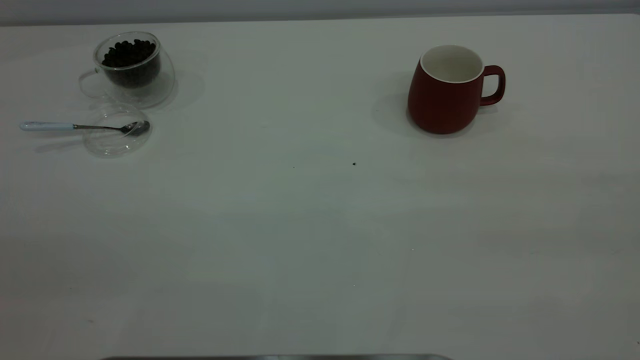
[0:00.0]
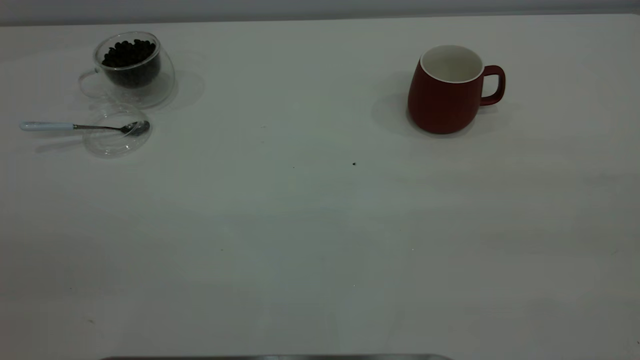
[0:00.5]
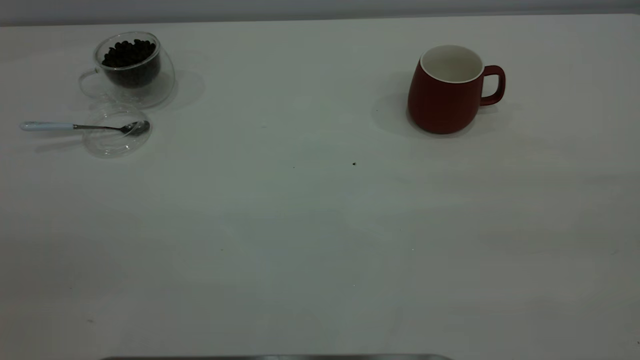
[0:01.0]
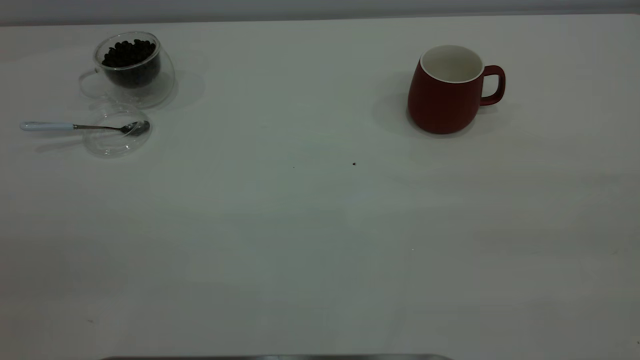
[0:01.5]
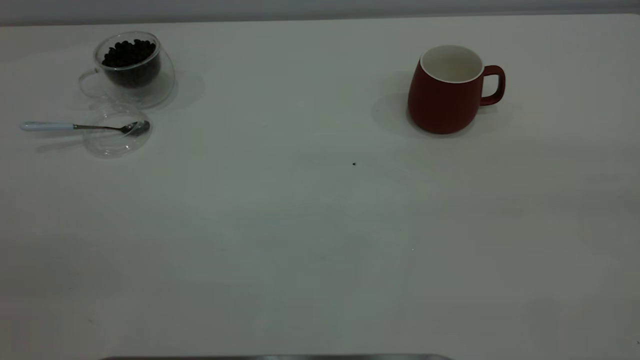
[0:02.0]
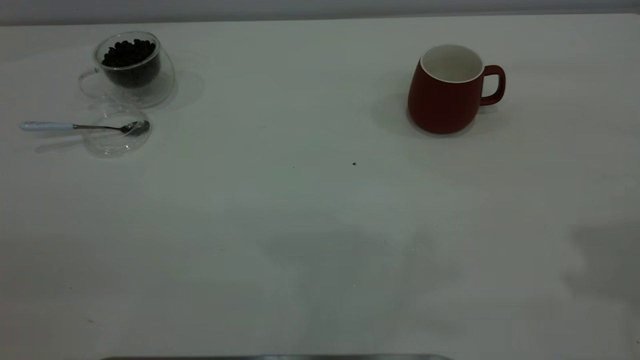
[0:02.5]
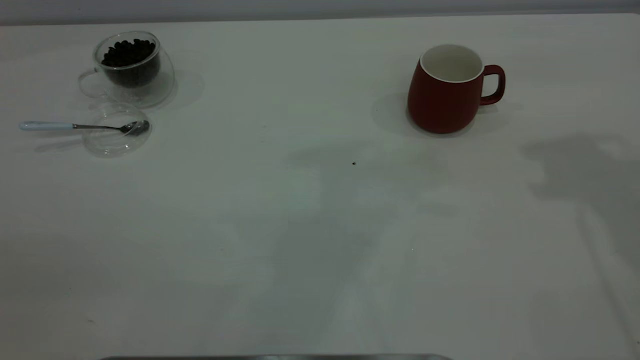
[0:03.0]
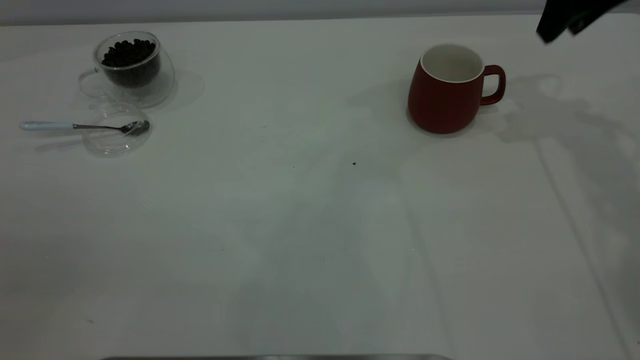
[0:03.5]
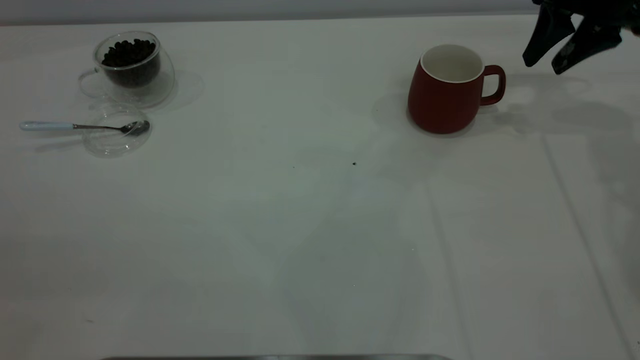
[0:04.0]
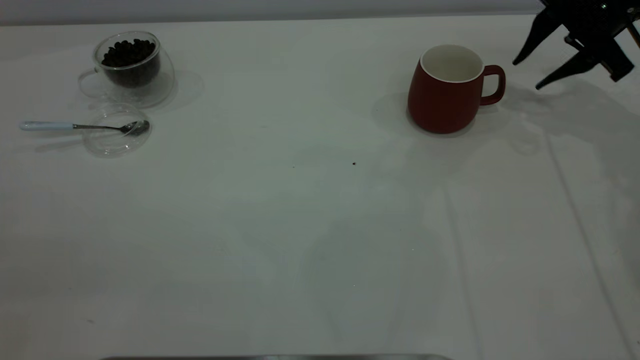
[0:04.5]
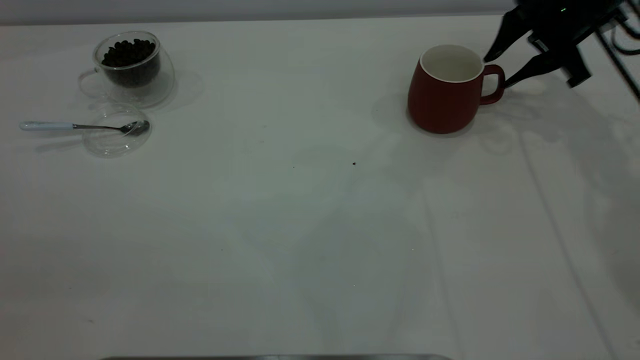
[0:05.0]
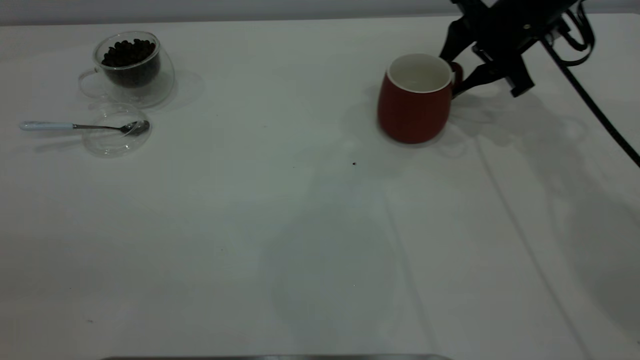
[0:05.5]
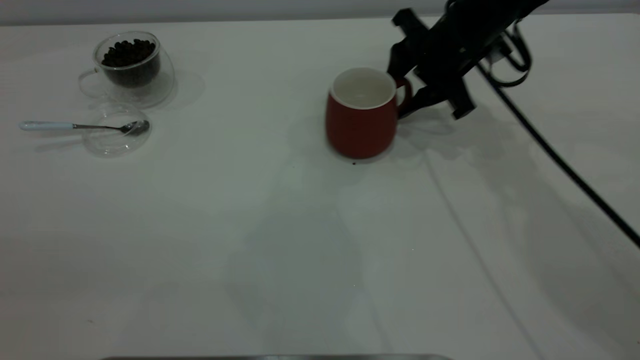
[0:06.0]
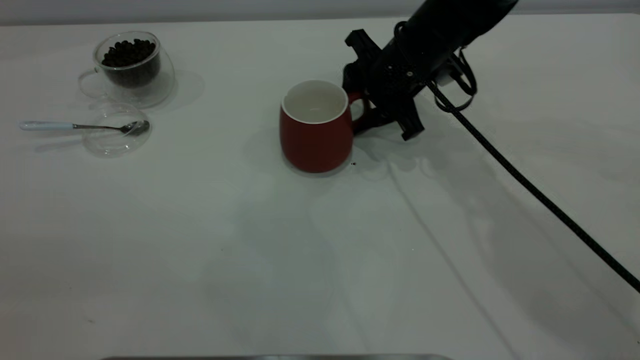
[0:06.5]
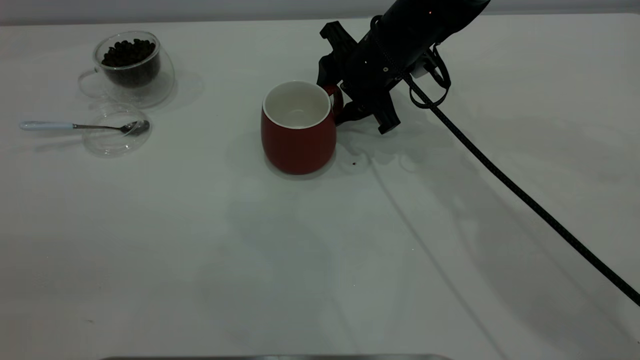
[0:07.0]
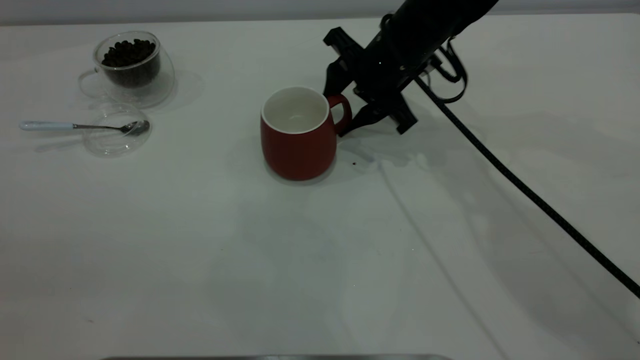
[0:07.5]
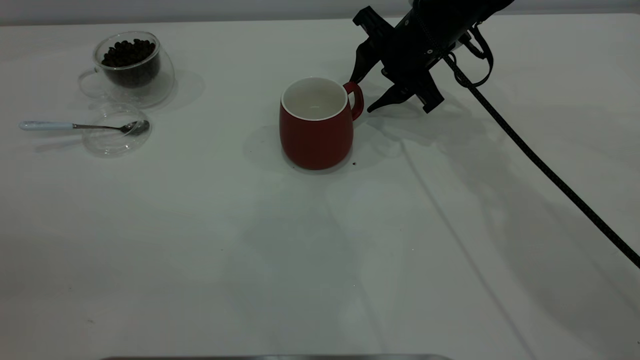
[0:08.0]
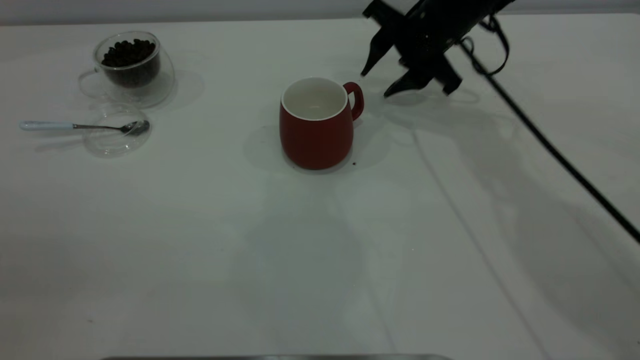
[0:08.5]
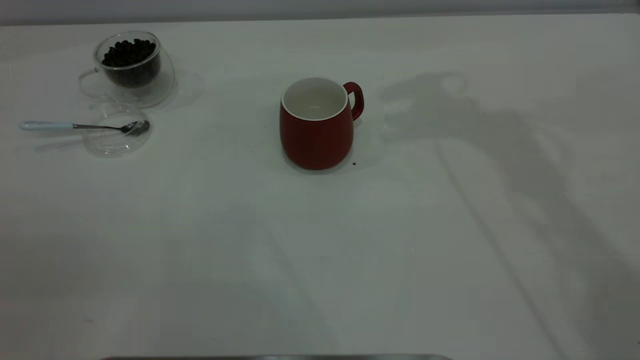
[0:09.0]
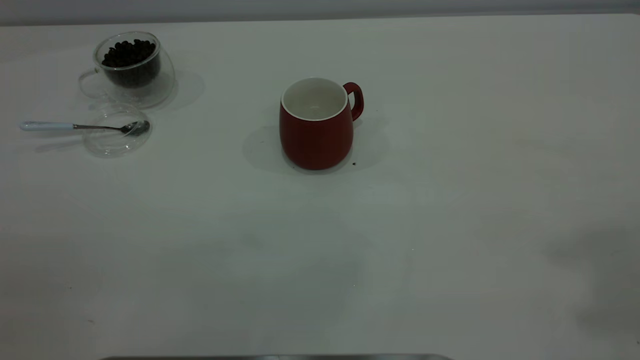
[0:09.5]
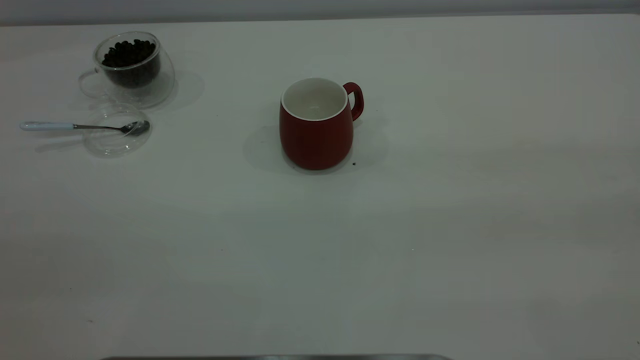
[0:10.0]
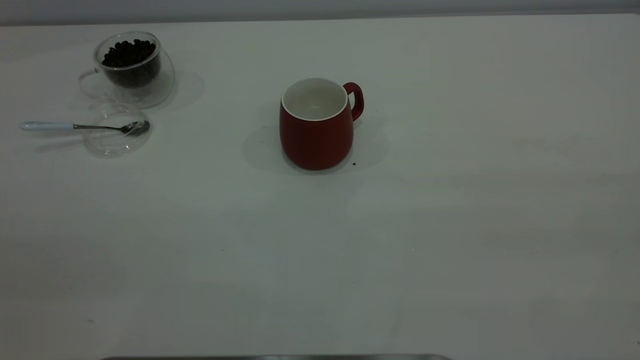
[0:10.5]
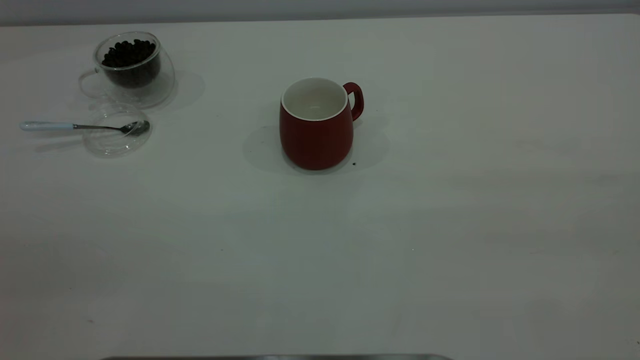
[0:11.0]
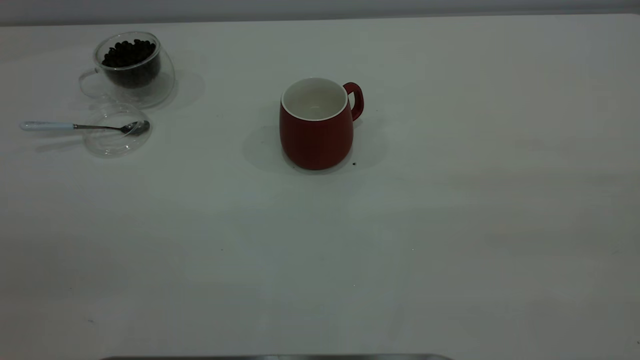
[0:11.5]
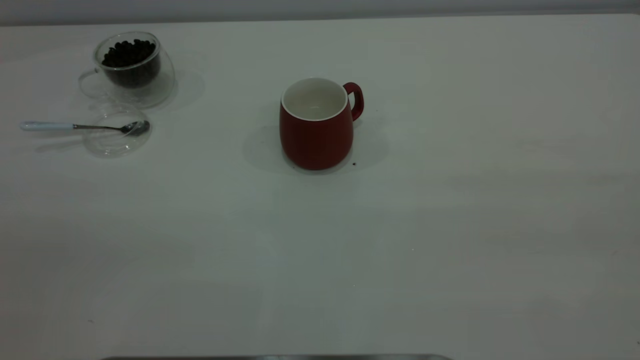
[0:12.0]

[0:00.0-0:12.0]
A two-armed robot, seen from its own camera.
Task of the whole recording: the right gripper place the red cup in the center of the table, the left gripper take the blue spoon from the cup lid and scoop out the coffee beans from the coffee cup and put them into the red cup, the left gripper put the spoon back into the cup lid.
Step, 0:00.0 to 0:08.0: Move the cup to the center of view.
0:02.0 to 0:04.0: The right gripper goes some 50 cm forward and downward.
0:04.0 to 0:06.0: The right gripper heads to the left, covering roughly 15 cm.
0:08.0 to 0:10.0: The right gripper shifts approximately 50 cm backward, upward and to the right.

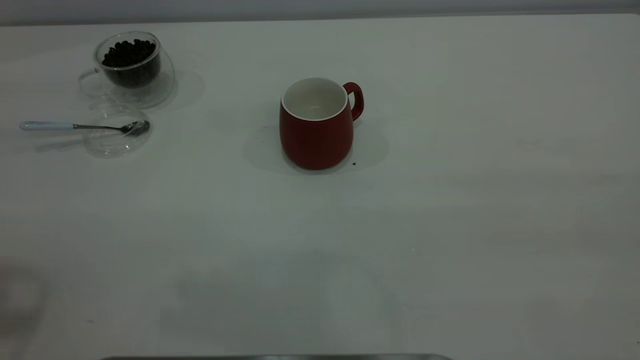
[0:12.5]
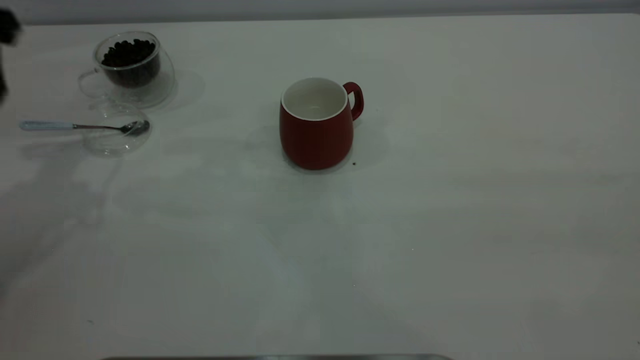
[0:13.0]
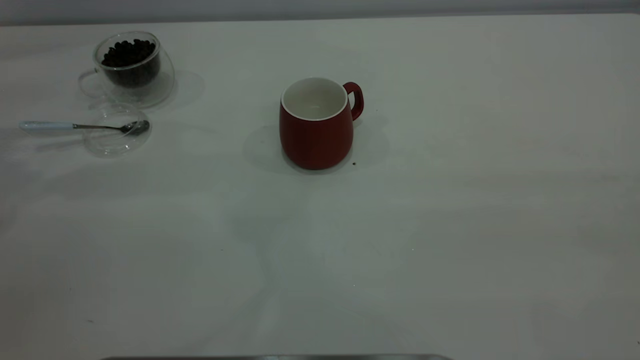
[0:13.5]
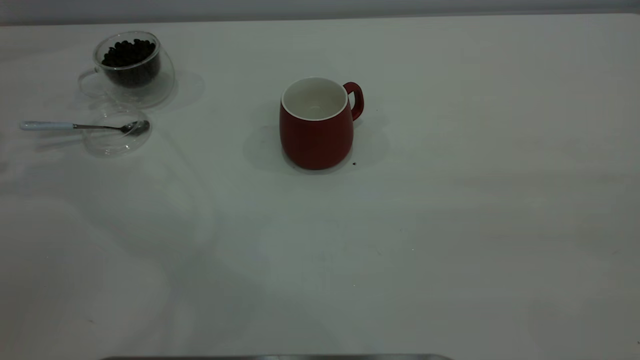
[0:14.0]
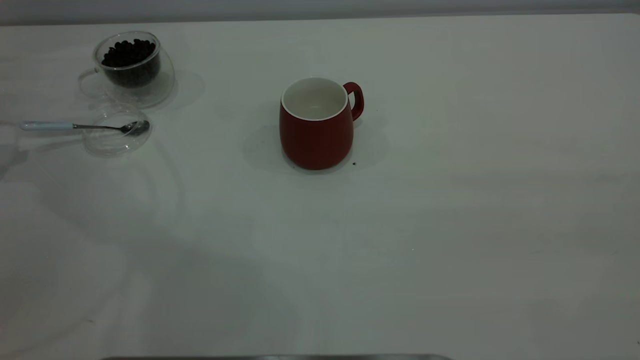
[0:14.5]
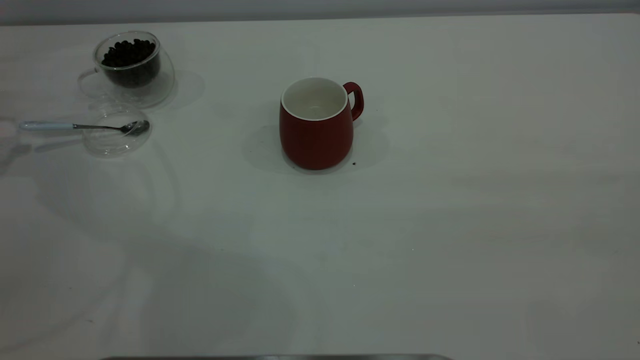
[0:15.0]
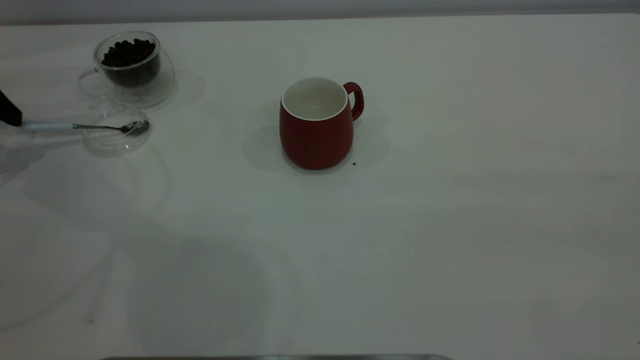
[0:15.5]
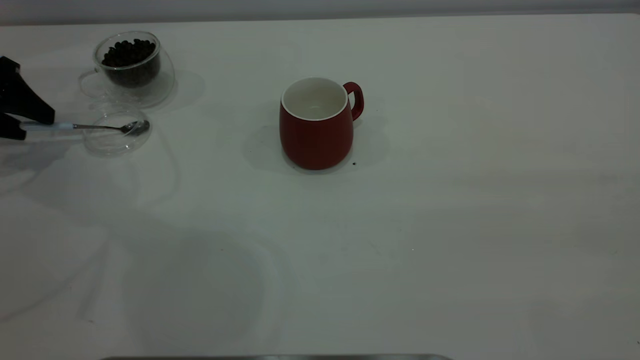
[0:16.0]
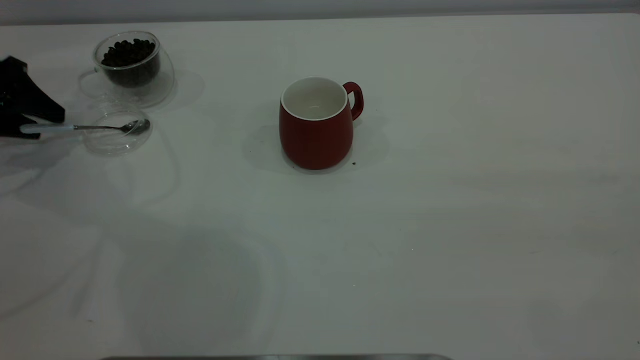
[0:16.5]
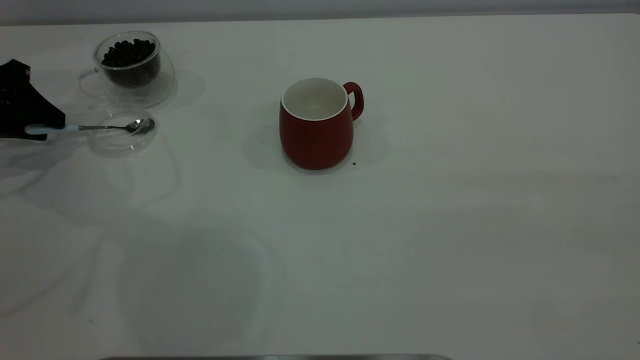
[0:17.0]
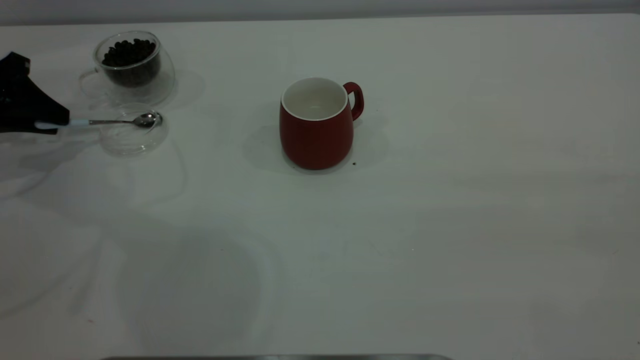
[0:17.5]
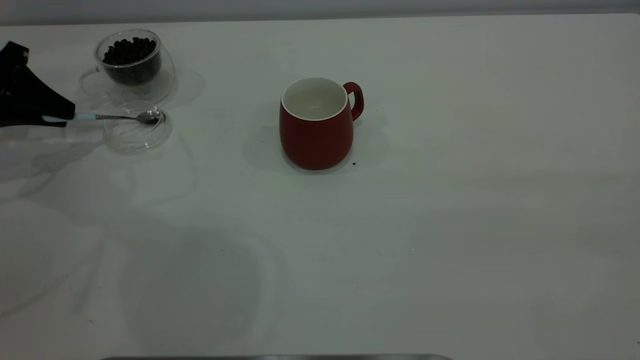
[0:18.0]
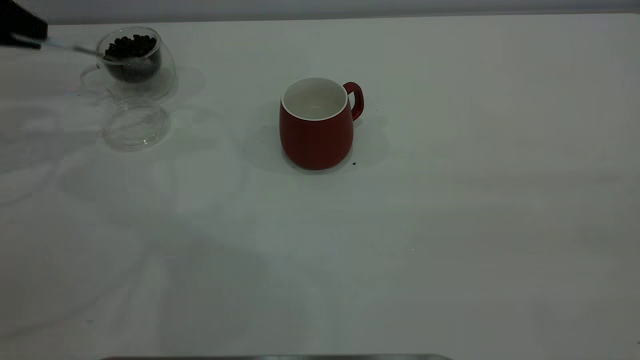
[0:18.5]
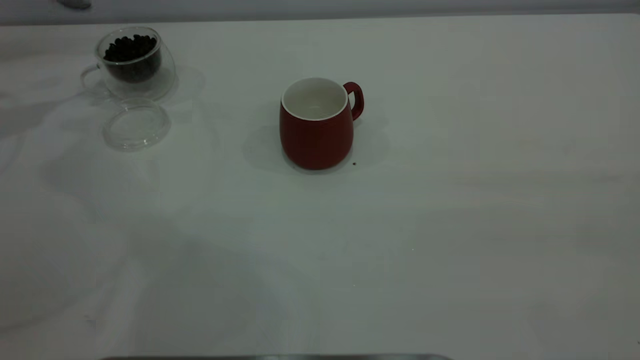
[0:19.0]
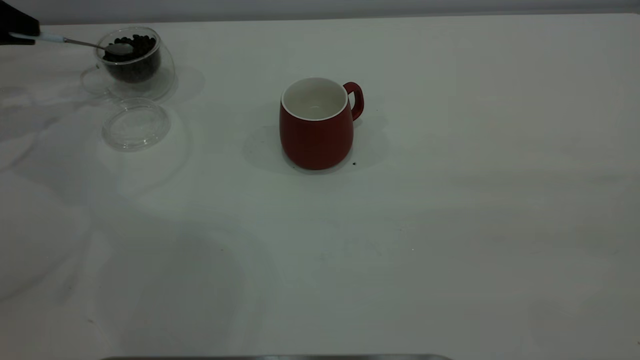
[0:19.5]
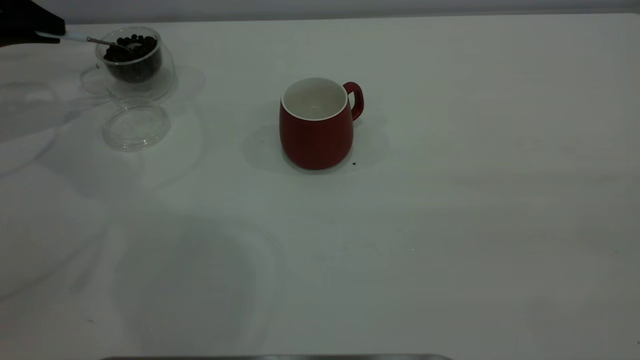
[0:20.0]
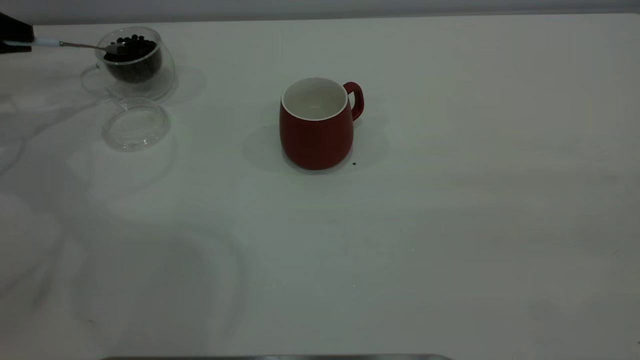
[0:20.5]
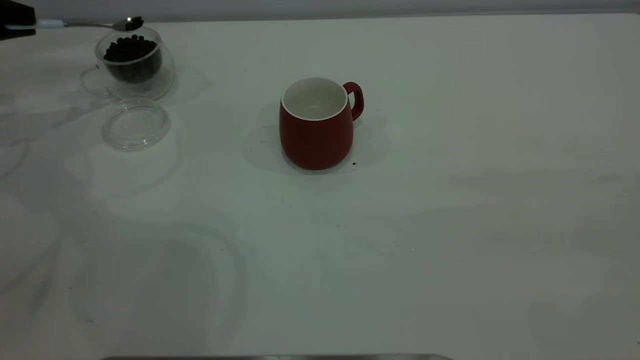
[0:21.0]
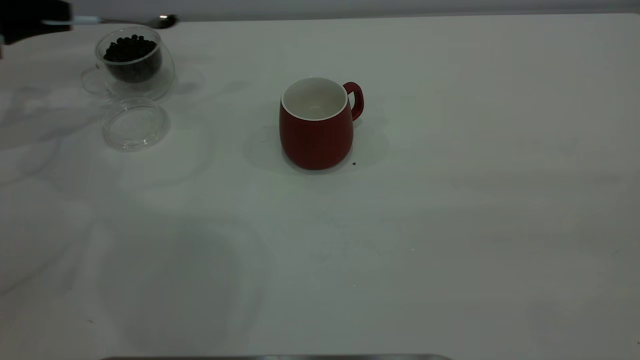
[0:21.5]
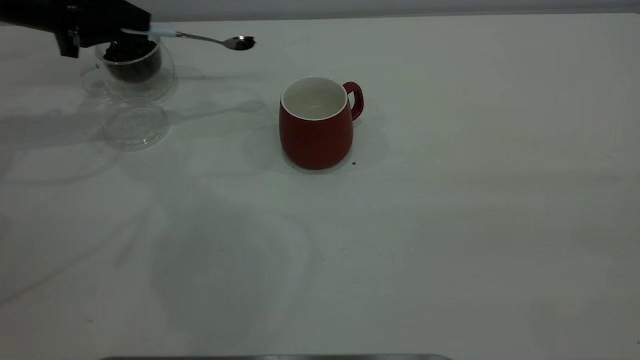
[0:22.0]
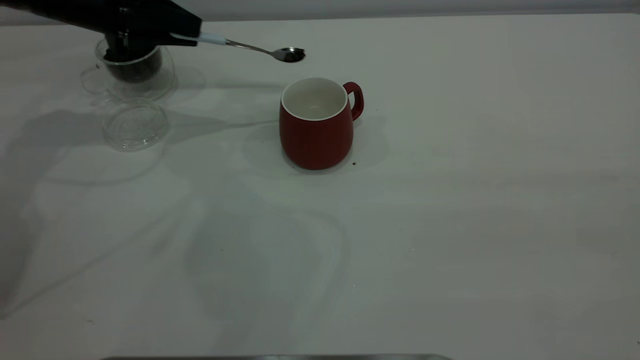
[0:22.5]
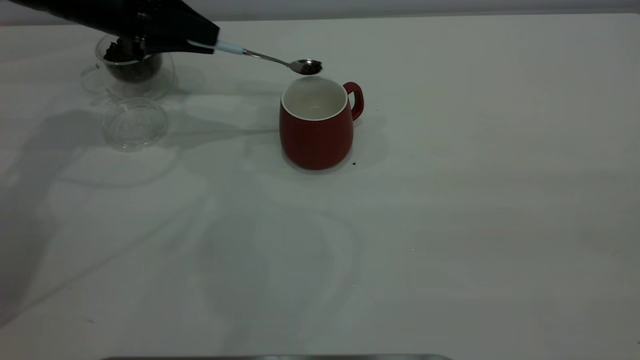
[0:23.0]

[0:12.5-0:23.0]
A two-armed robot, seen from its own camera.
Task of the whole recording: the right gripper place the red cup in the center of the table, the left gripper take the blue spoon from the cup lid and scoop out the coffee beans from the coffee cup and put them into the red cup, the left gripper put the spoon back into the cup lid.
Step, 0:12.5 to 0:18.5: Pick up the spoon.
0:14.5 to 0:16.5: The left gripper is displaced downward by some 5 cm.
0:16.5 to 0:19.0: The left gripper shifts about 15 cm upward, and closes its fingers.
0:19.0 to 0:21.0: The left gripper moves downward, approximately 5 cm.
0:21.0 to 0:23.0: The left gripper shifts approximately 20 cm to the right.
